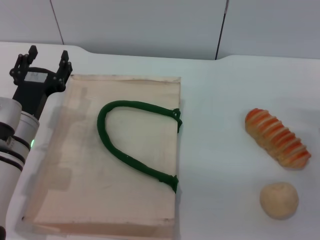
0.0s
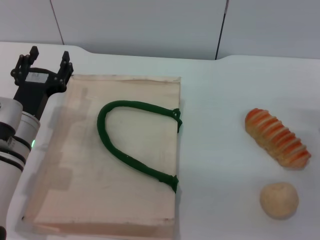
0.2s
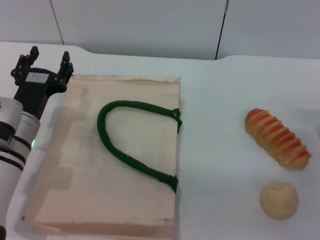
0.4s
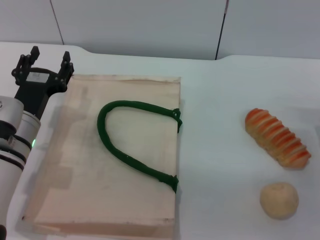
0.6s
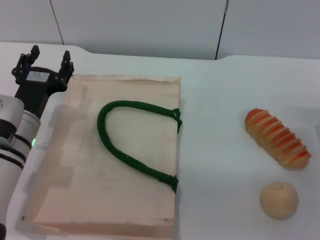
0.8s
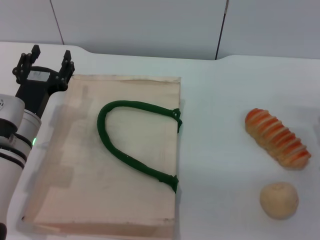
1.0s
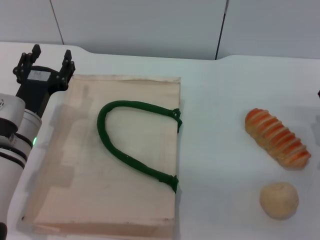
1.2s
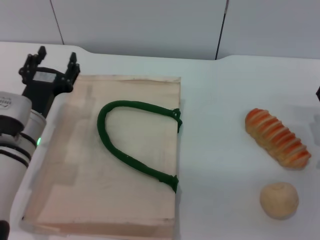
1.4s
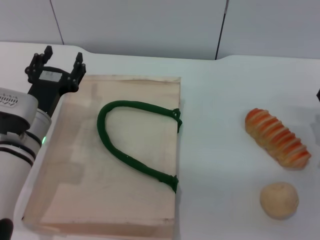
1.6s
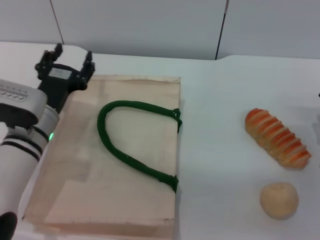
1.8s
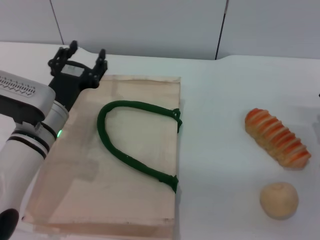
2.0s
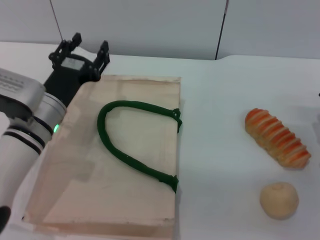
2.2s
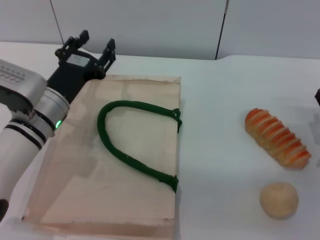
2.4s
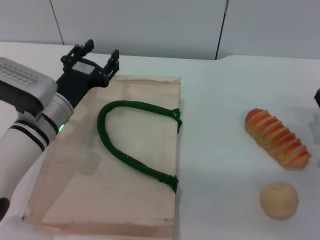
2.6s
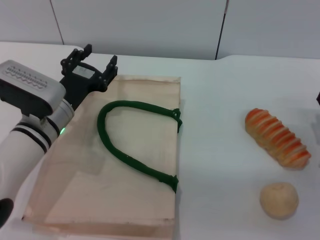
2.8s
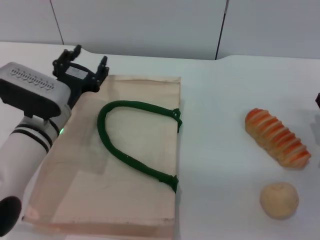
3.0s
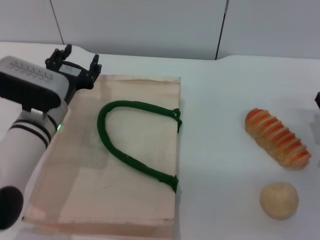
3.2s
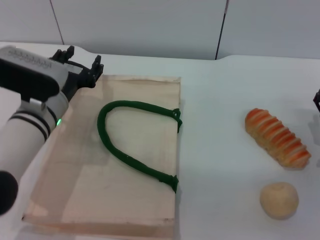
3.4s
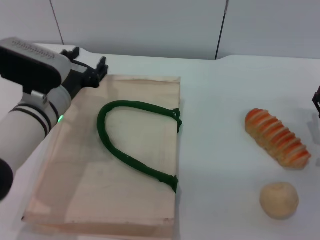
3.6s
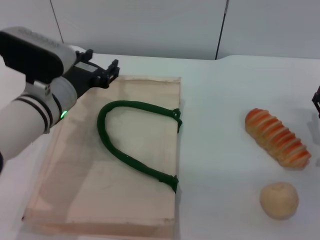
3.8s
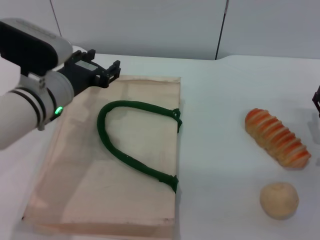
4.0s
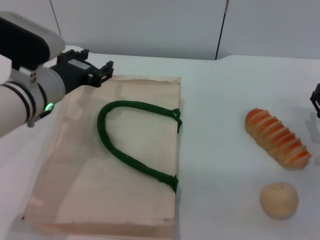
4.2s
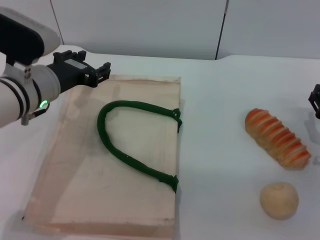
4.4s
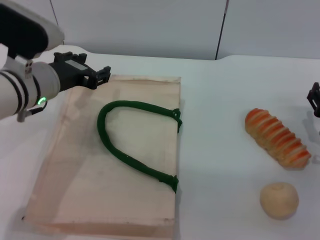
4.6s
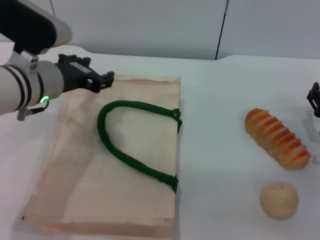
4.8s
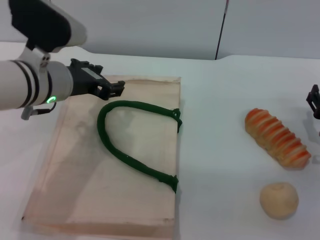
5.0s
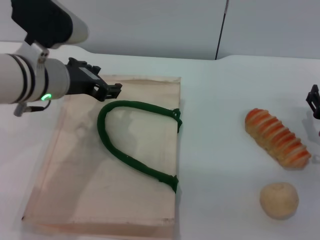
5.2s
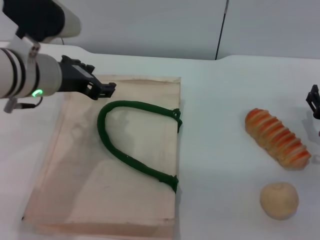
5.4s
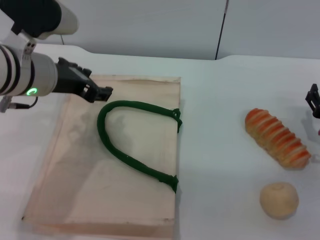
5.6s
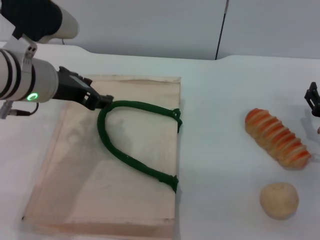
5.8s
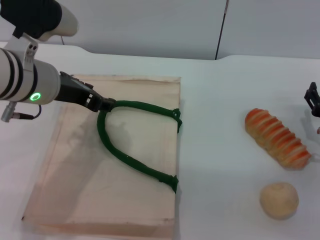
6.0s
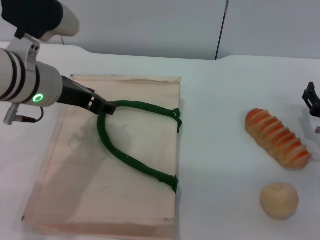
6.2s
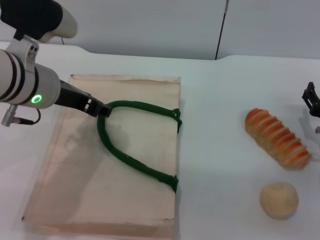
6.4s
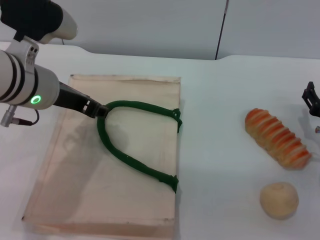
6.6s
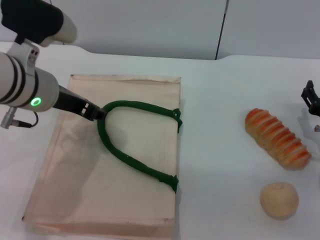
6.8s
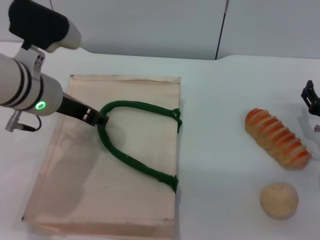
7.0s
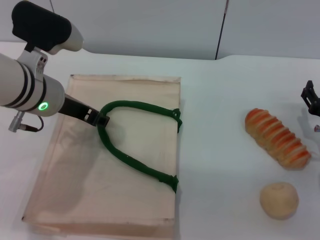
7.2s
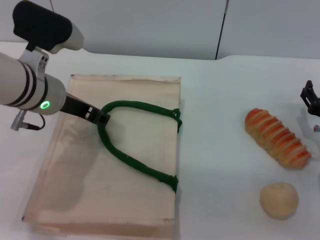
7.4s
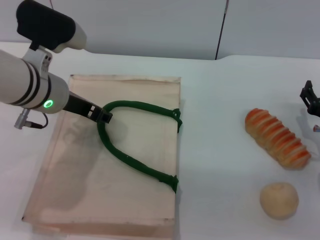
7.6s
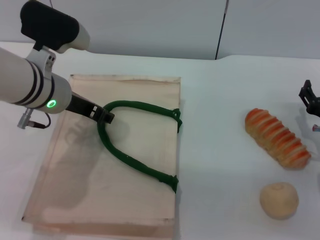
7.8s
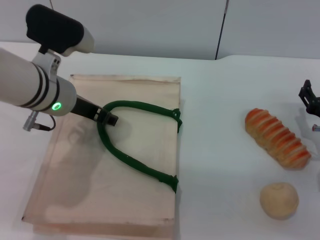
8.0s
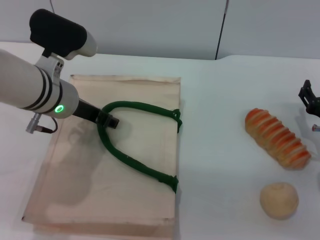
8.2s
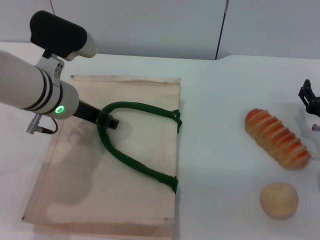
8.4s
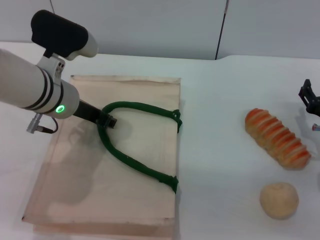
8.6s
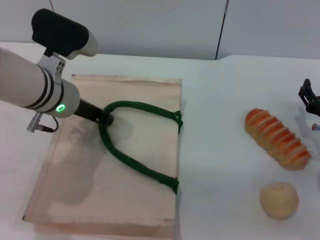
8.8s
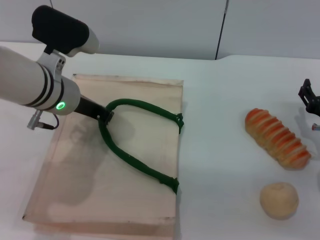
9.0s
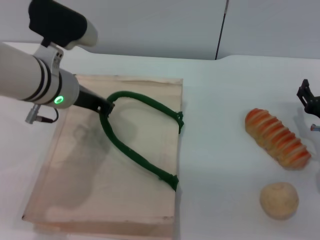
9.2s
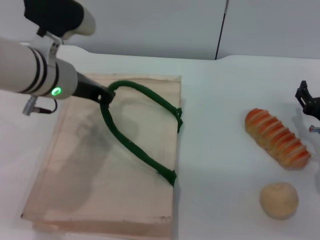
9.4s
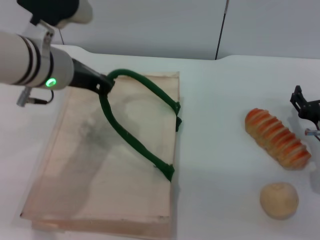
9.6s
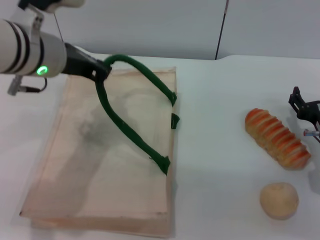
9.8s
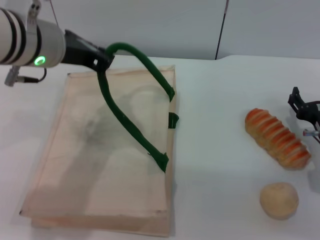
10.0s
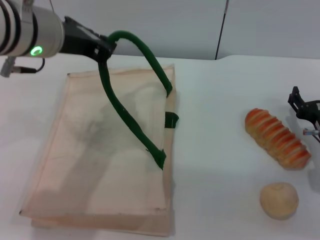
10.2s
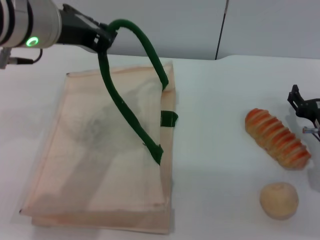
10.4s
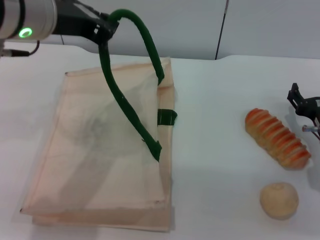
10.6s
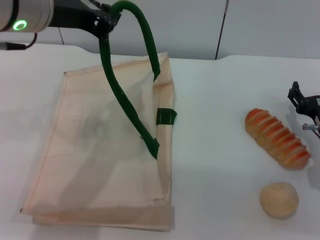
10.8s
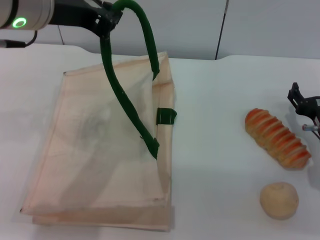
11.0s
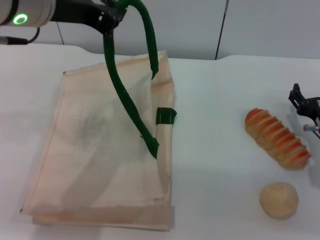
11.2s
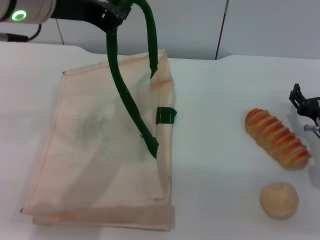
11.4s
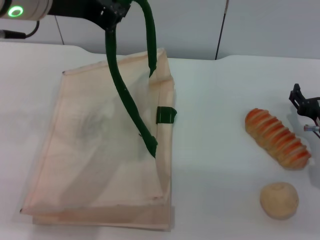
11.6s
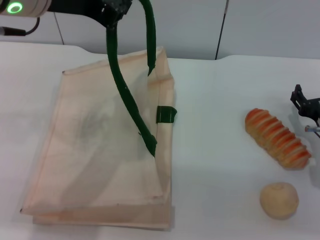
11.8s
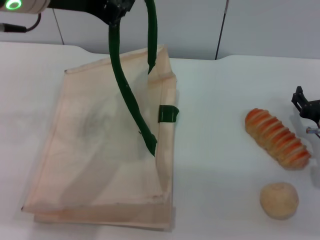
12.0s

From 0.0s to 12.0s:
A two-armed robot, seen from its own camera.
Task of the whole recording: pick up the bread and egg yolk pastry from the table and place it in the white handbag.
From 0.0s to 3.0s: The grippers stay close to where they were, moving slightly.
From 3.0s to 4.4s: The left gripper shifts some 10 cm upward.
From 4.4s to 6.0s: The left gripper moves upward, roughly 5 cm.
From 6.0s to 7.6s: The grippers stay close to where they were, moving slightly.
From 7.6s to 9.0s: The left gripper closes its fingers.
From 9.0s to 10.4s: The left gripper travels upward by approximately 10 cm.
From 10.4s to 12.0s: The left gripper is displaced upward by some 5 cm.

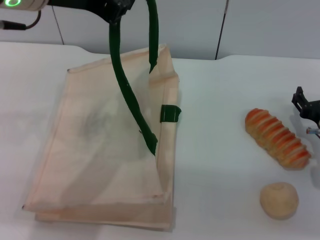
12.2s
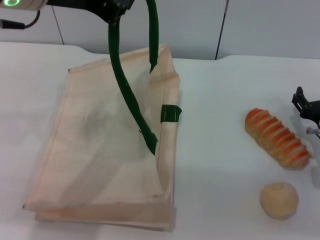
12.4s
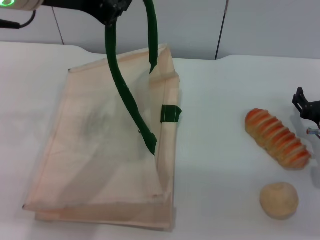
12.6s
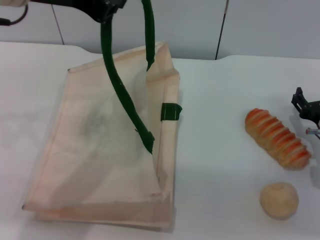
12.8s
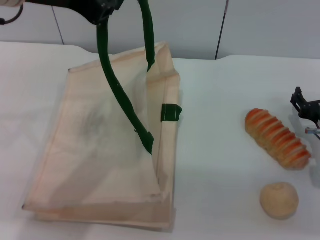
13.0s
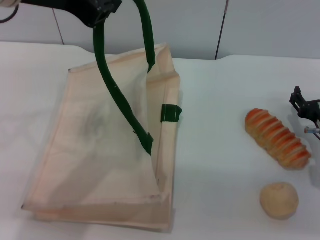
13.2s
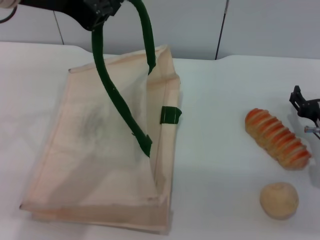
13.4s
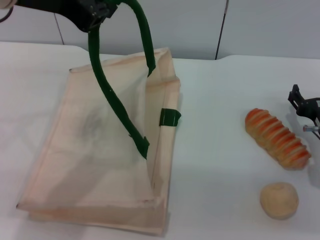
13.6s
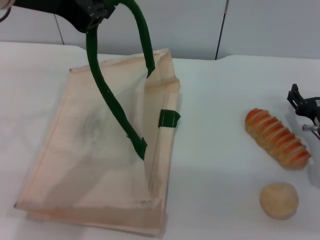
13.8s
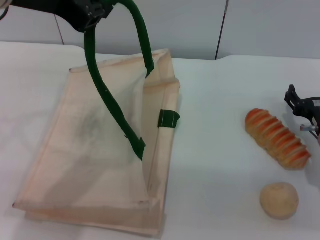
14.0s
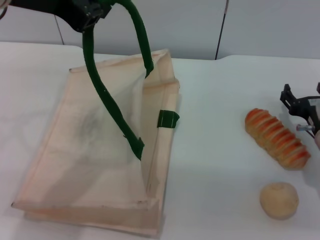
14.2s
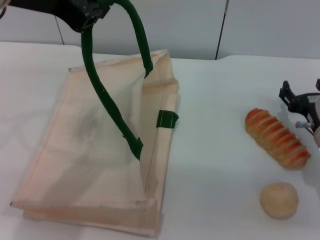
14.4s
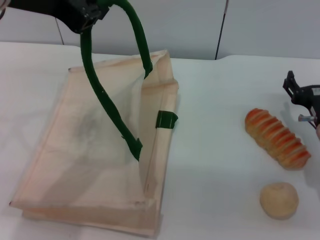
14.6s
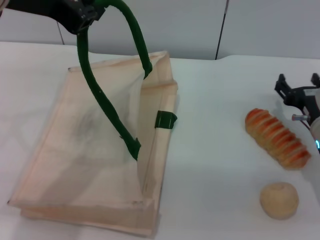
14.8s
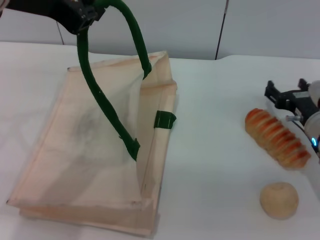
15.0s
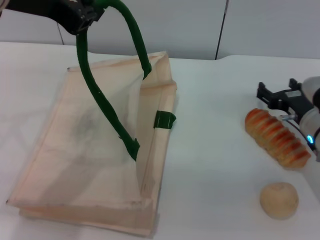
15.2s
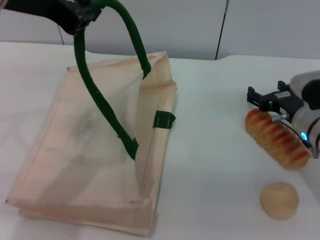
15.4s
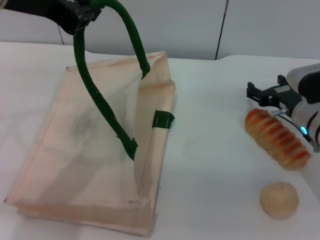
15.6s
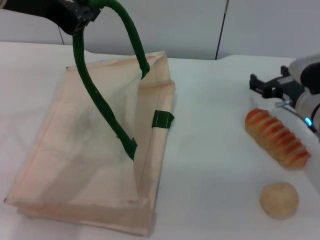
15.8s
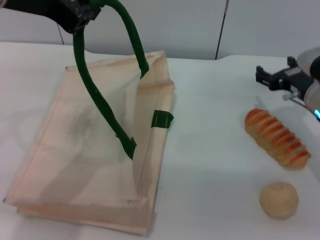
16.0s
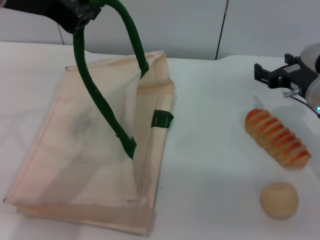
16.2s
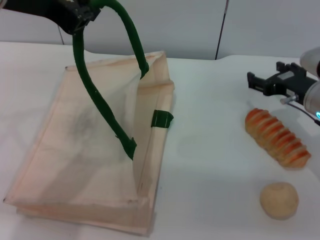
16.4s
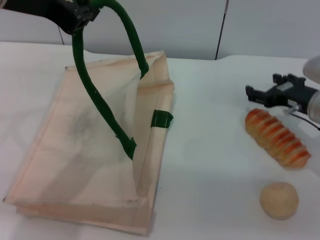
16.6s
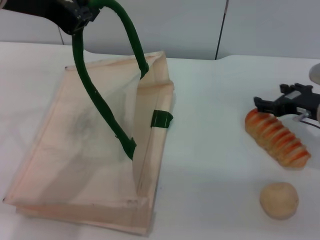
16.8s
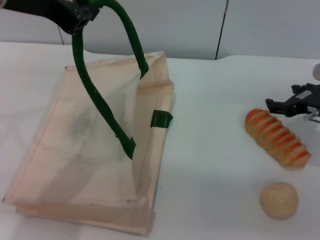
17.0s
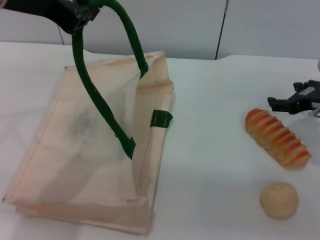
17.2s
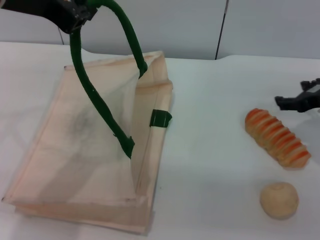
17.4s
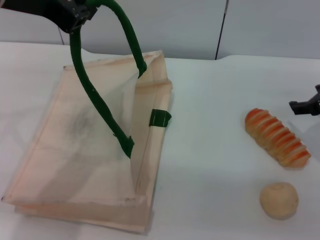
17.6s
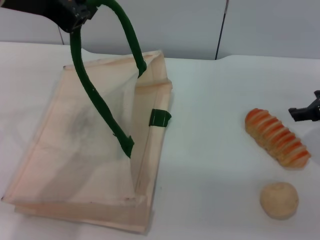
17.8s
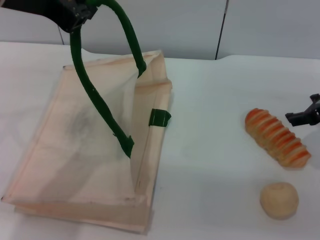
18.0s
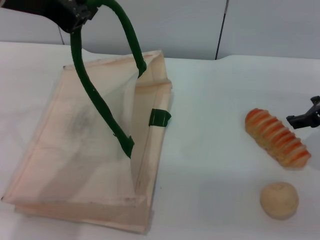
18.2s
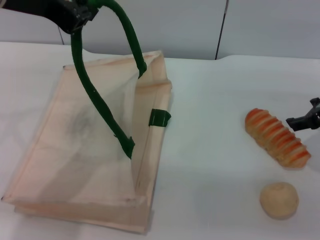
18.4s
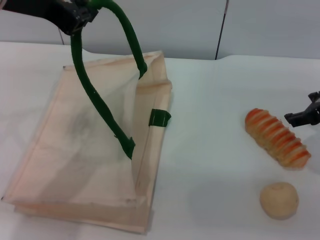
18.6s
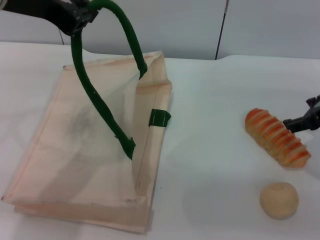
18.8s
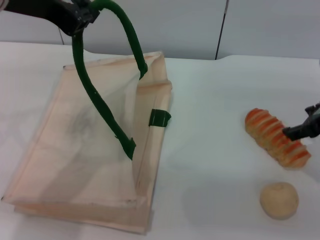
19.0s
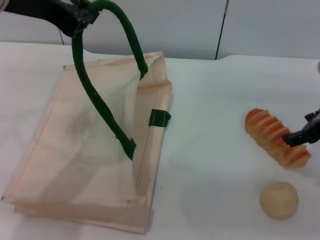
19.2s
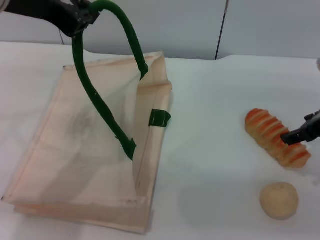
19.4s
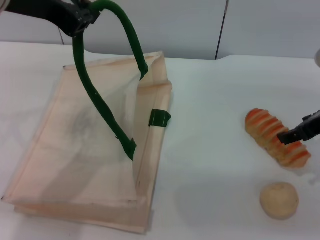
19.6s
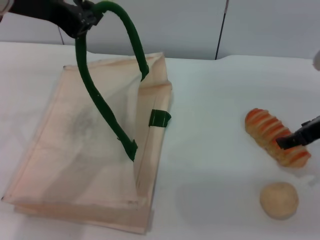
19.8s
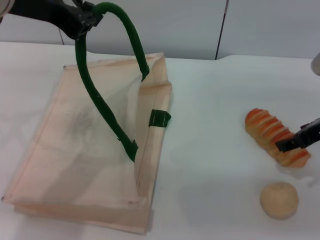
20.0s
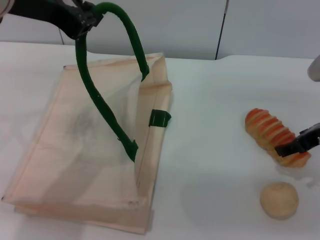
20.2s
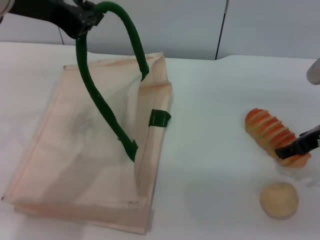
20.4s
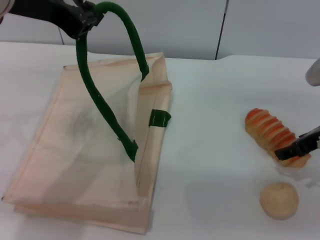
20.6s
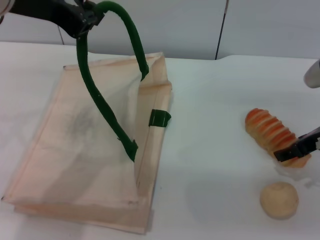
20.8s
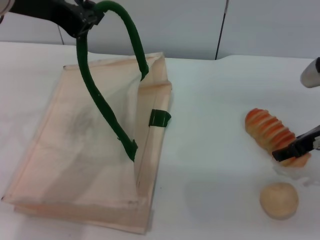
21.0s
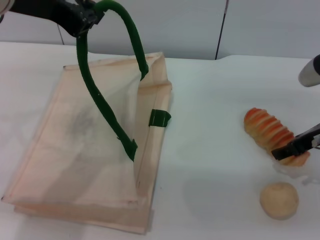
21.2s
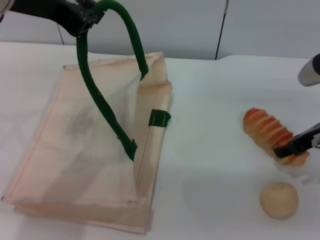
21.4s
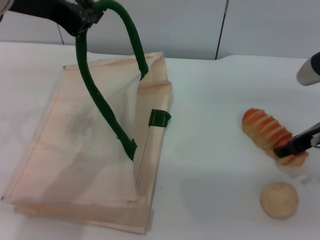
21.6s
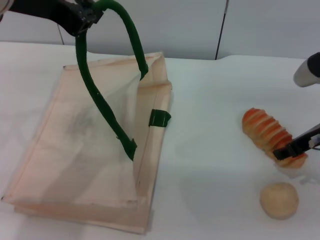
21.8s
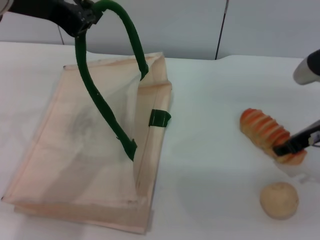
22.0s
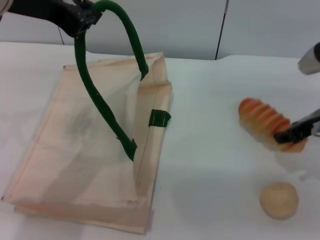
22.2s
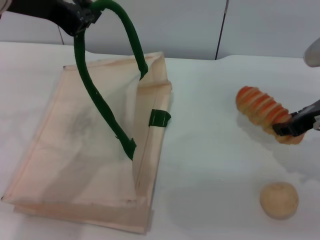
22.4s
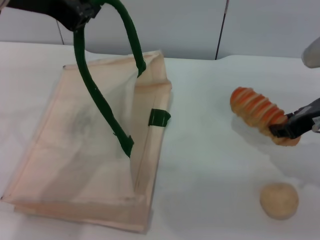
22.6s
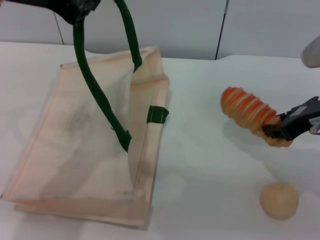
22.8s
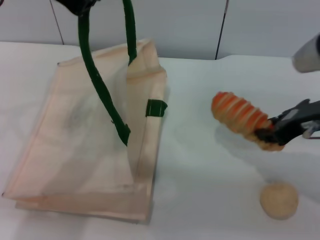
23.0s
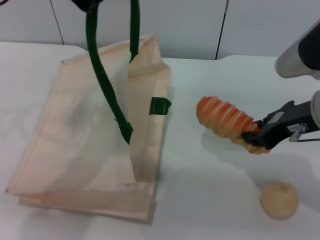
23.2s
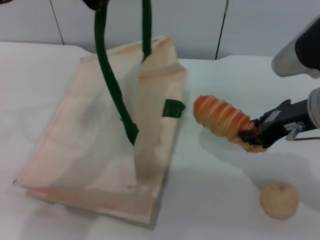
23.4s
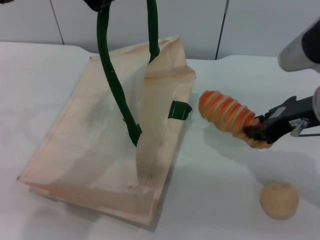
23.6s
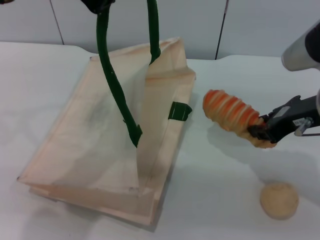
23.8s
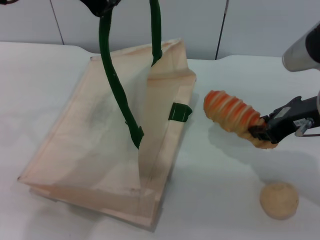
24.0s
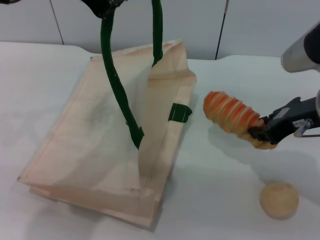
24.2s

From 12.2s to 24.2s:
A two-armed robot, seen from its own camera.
Task of the whole recording: pick up the bread and egg yolk pastry from the table and place it in the white handbag.
Step, from 13.4s to 22.4s: Pick up the bread with the right gripper.
From 12.2s to 15.2s: The grippers stay close to where they were, moving slightly.
From 15.2s to 16.6s: There are only small adjustments of the grippers.
From 16.6s to 18.2s: The right gripper heads upward, covering approximately 5 cm.
From 18.2s to 21.2s: The grippers move only a little.
From 21.2s to 22.6s: The right gripper shifts by about 5 cm, and closes its fingers.
